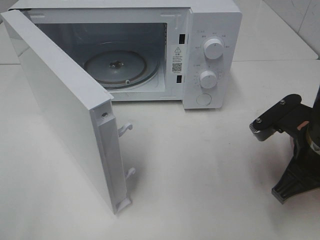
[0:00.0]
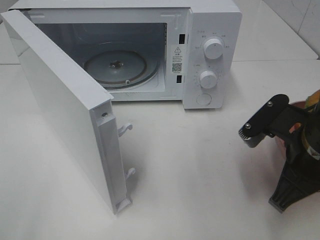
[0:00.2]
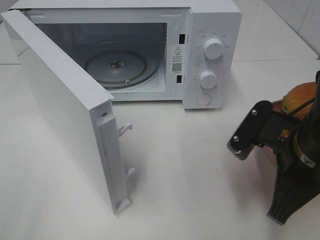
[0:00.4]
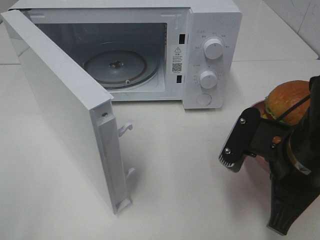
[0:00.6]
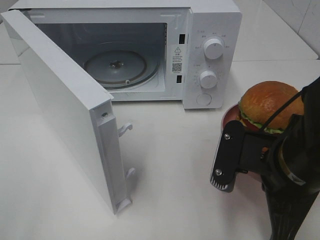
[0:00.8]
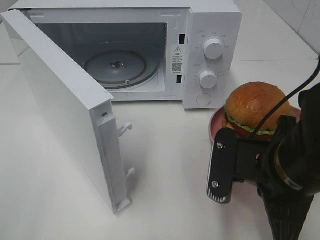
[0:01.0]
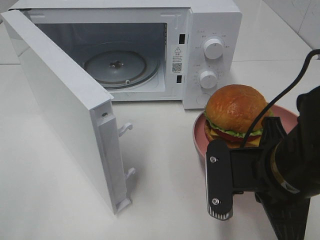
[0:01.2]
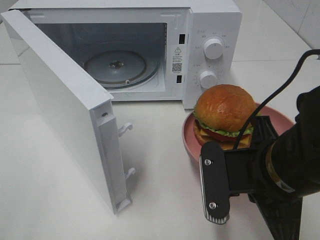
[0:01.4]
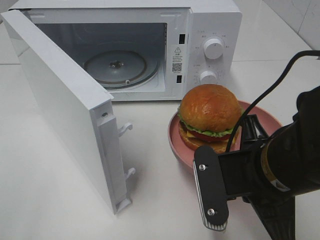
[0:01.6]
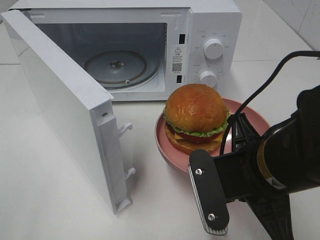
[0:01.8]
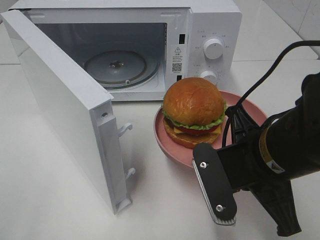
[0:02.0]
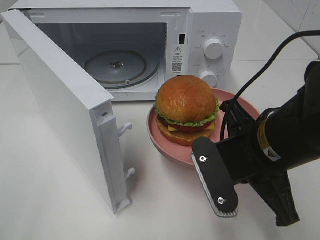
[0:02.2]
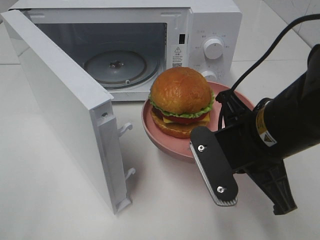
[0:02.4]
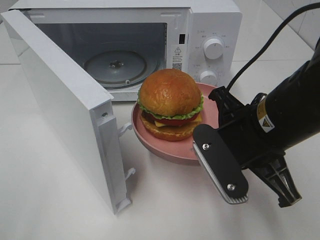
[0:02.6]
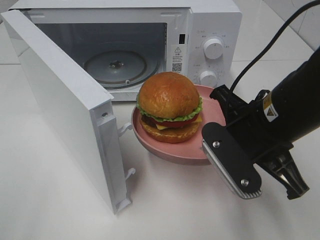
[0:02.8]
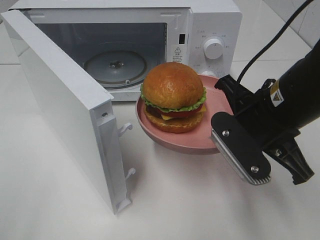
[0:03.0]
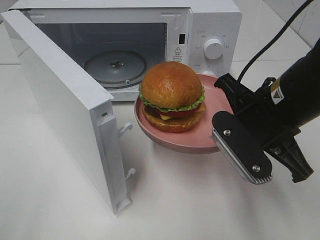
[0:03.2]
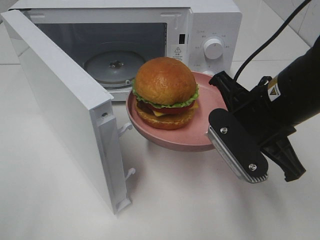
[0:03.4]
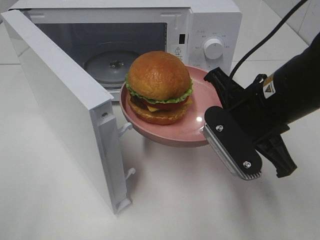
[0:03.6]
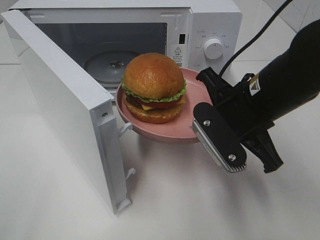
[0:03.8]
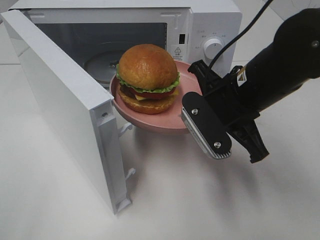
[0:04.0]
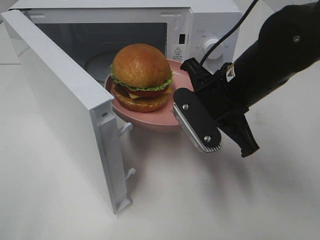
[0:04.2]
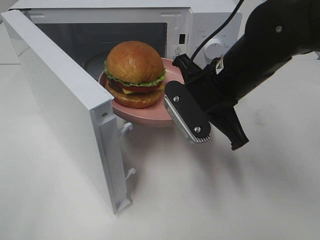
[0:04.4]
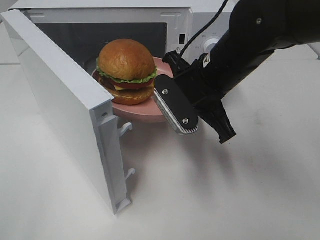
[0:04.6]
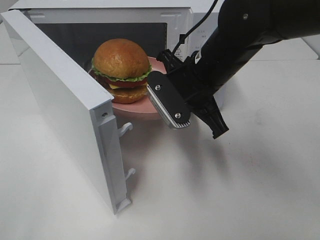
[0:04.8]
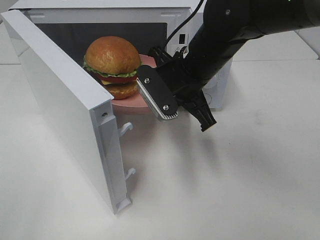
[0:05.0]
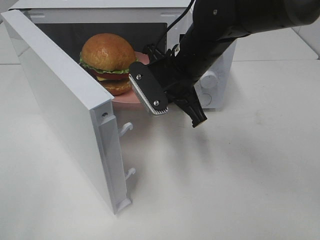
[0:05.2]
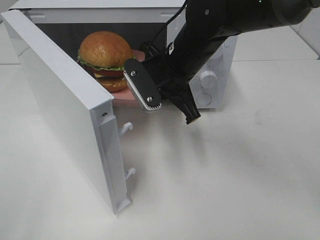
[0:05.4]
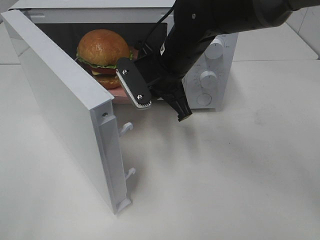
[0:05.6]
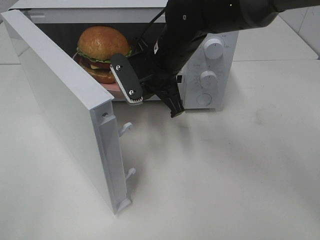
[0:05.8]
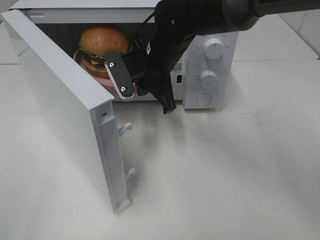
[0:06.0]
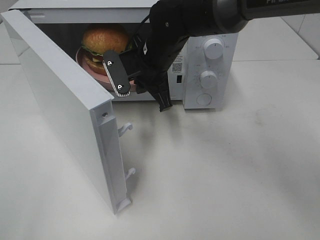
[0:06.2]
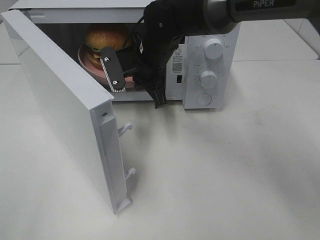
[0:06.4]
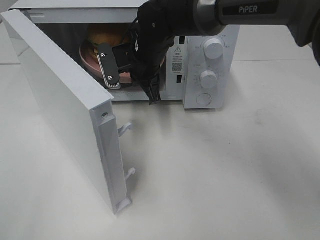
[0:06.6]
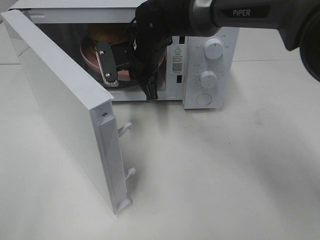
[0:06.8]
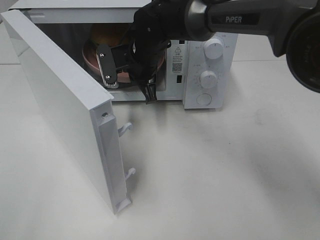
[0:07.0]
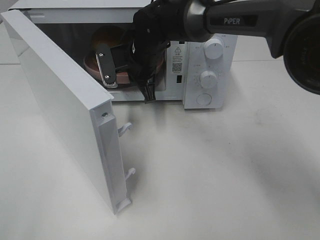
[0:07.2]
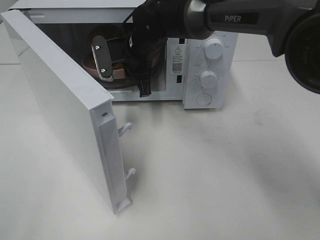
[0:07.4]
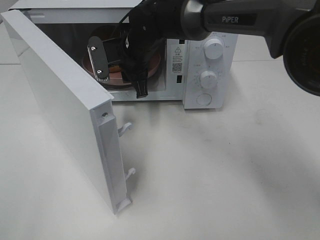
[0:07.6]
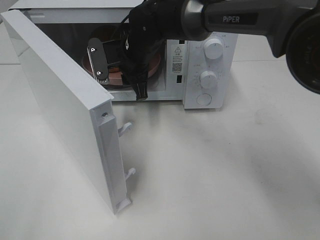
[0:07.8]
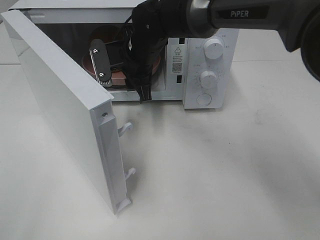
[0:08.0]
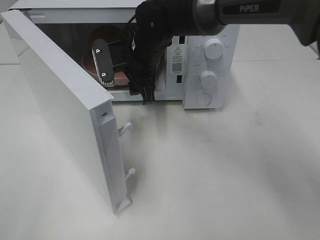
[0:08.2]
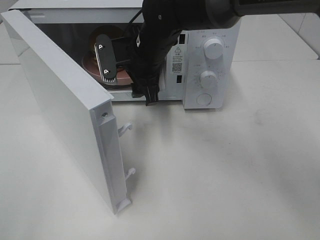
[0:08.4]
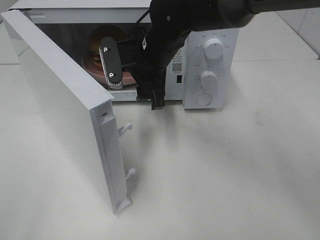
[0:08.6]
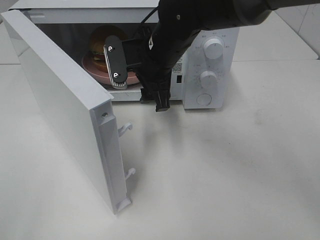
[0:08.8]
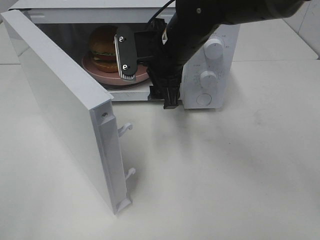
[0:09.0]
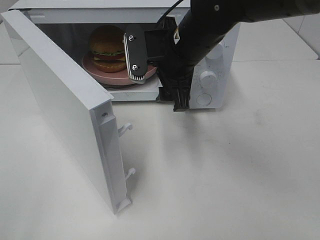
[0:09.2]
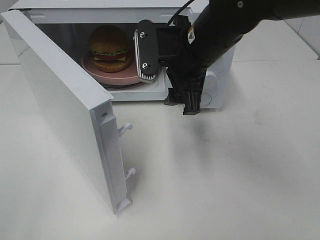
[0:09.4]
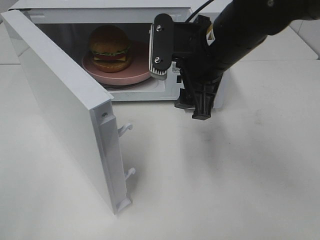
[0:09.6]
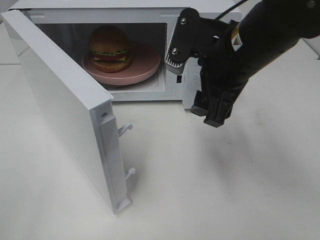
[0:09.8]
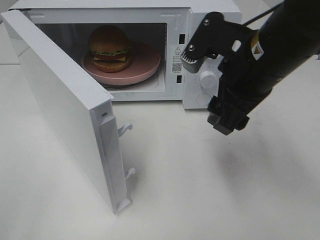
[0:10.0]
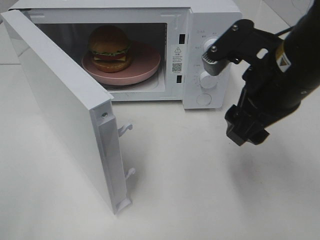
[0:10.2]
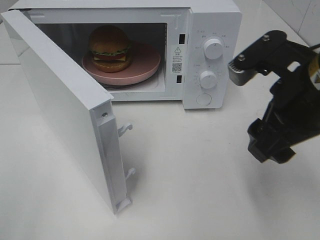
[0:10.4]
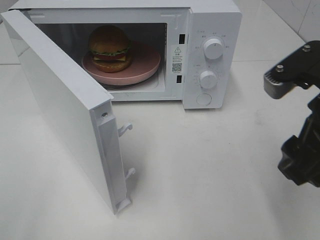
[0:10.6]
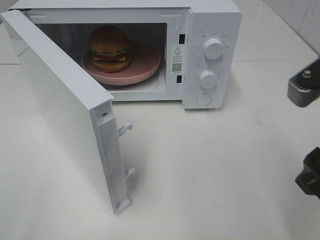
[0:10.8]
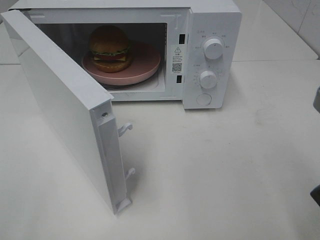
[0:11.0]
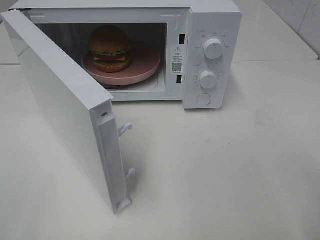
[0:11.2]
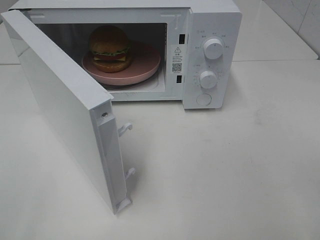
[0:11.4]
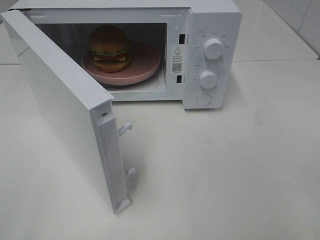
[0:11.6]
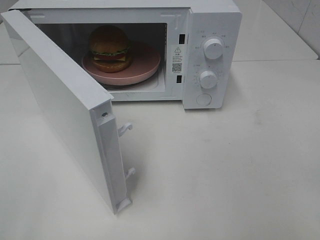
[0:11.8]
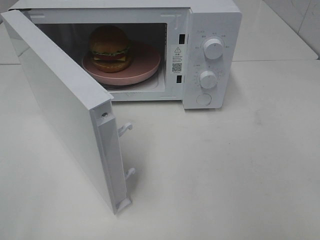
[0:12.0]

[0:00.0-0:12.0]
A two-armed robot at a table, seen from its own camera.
Task of the whole recording: Heat the burger.
Step, 0:00.0 to 0:07.6: Right hand: place the plate in the microwave.
0:00.0 to 0:01.6: The right gripper goes approximately 10 cm to the left.
0:01.6 to 0:03.0: The right gripper goes about 5 cm forward.
0:03.0 to 0:04.4: The right gripper shifts roughly 10 cm forward and to the left.
0:04.4 to 0:06.0: The right gripper goes some 15 cm forward and to the left.
0:06.0 to 0:07.6: The right gripper moves forward, approximately 5 cm, and opens its fingers.
0:07.6 to 0:09.0: The right gripper travels backward and to the right by approximately 10 cm, and opens up.
0:09.0 to 0:10.4: The right gripper heads backward and to the right, covering about 20 cm.
0:10.4 to 0:12.0: The right gripper heads backward and to the right, covering about 20 cm.

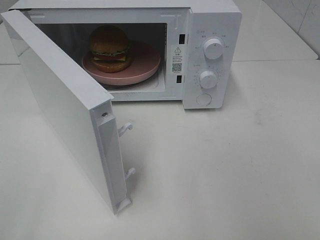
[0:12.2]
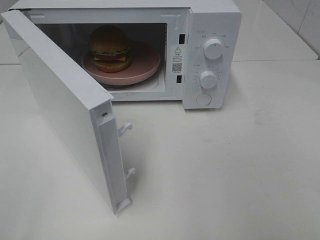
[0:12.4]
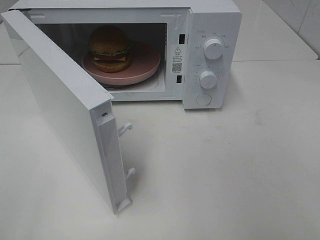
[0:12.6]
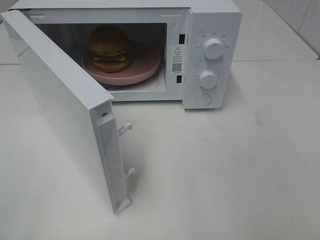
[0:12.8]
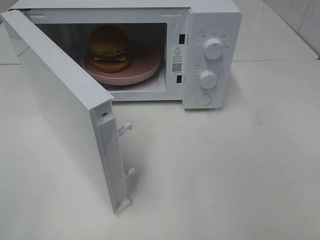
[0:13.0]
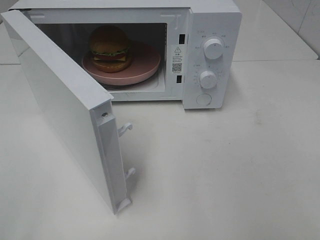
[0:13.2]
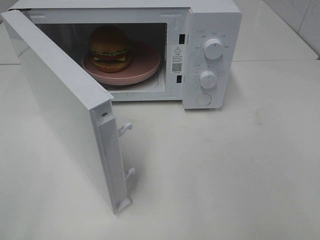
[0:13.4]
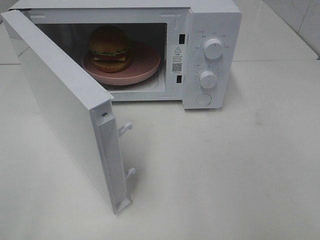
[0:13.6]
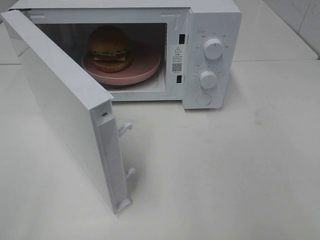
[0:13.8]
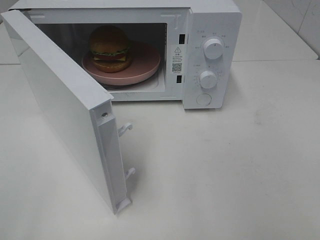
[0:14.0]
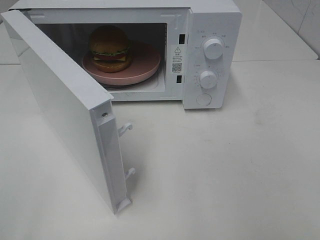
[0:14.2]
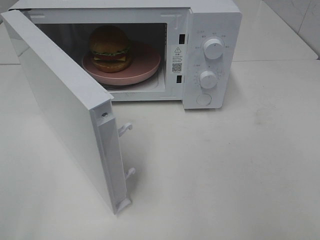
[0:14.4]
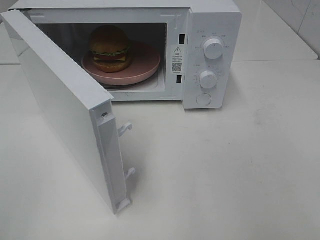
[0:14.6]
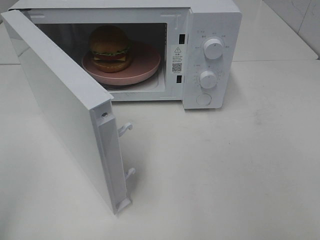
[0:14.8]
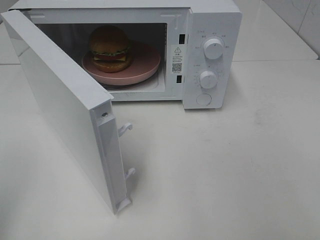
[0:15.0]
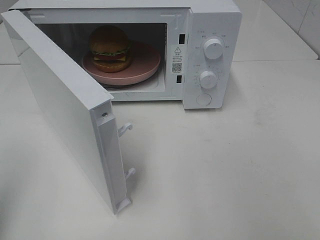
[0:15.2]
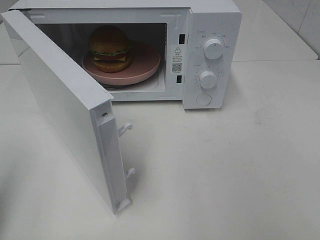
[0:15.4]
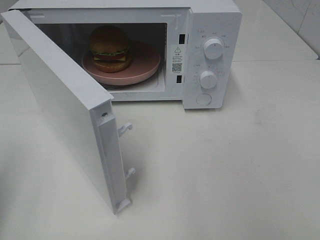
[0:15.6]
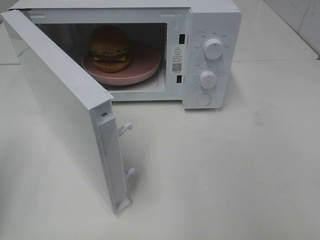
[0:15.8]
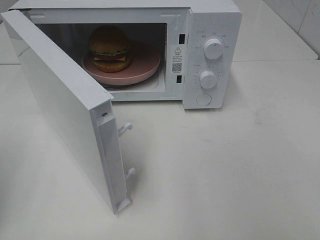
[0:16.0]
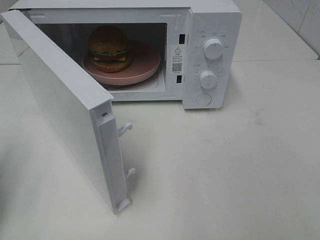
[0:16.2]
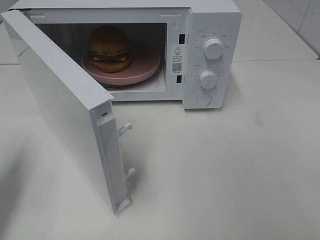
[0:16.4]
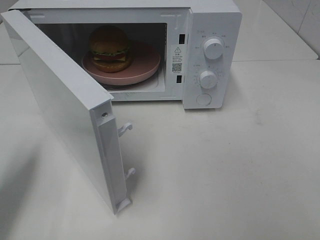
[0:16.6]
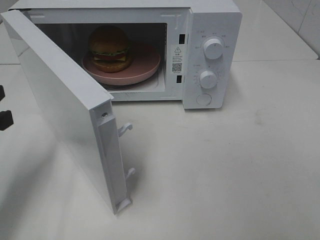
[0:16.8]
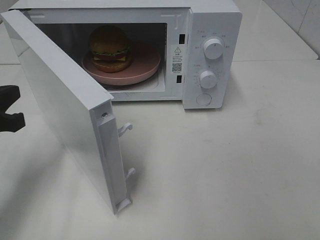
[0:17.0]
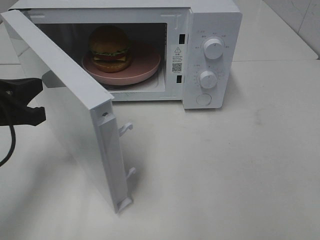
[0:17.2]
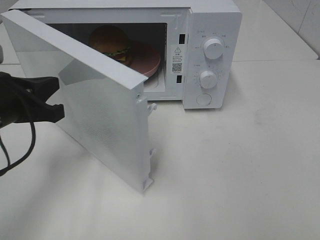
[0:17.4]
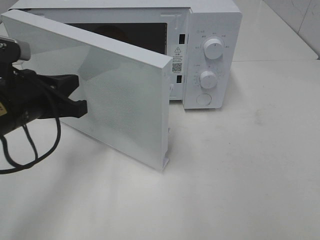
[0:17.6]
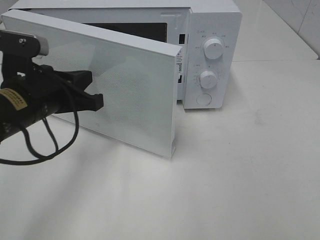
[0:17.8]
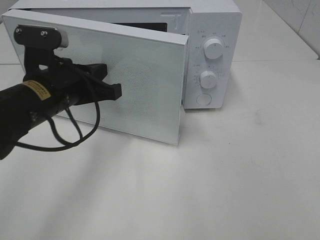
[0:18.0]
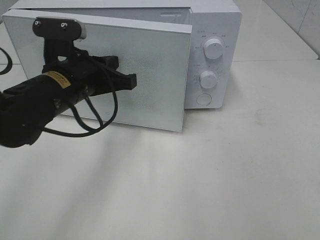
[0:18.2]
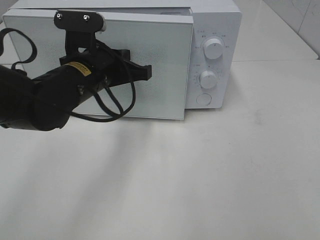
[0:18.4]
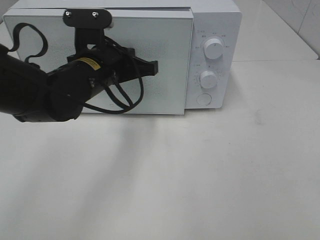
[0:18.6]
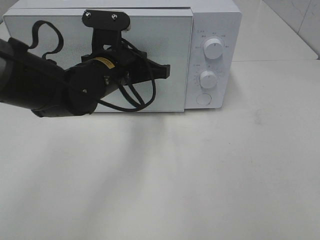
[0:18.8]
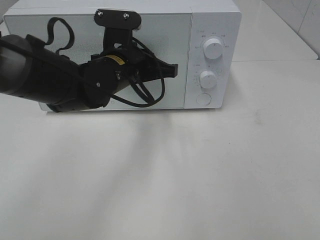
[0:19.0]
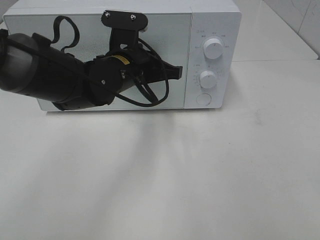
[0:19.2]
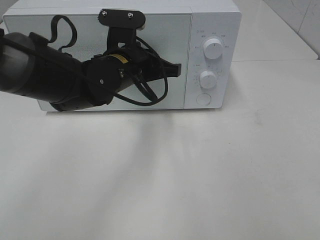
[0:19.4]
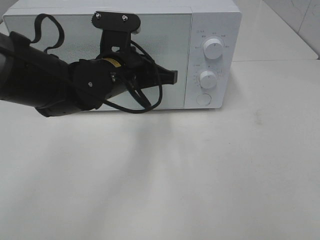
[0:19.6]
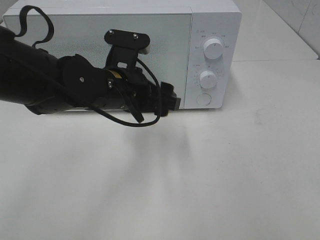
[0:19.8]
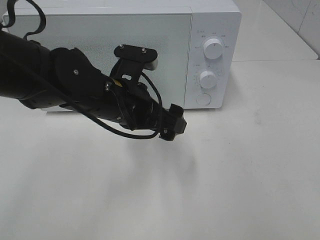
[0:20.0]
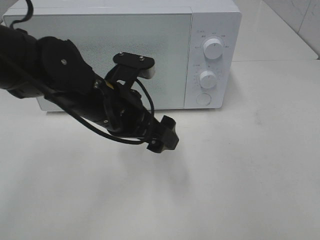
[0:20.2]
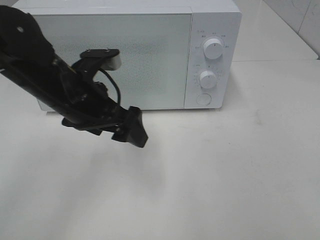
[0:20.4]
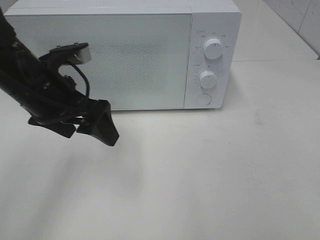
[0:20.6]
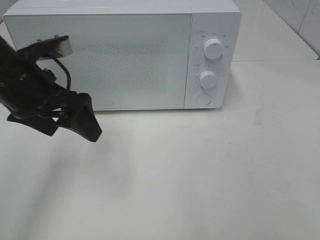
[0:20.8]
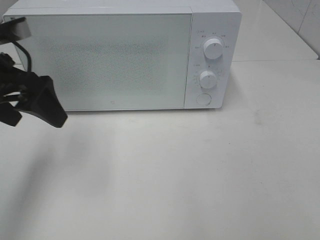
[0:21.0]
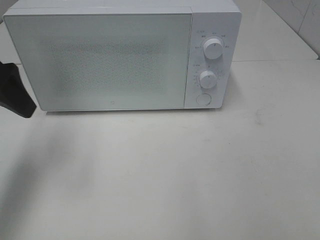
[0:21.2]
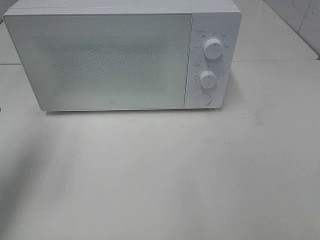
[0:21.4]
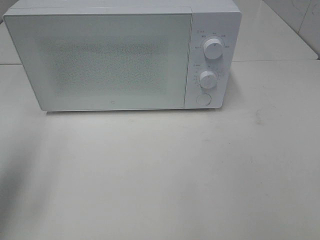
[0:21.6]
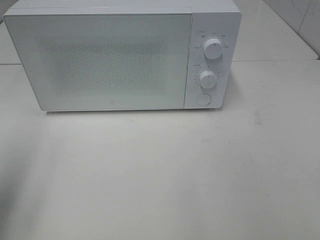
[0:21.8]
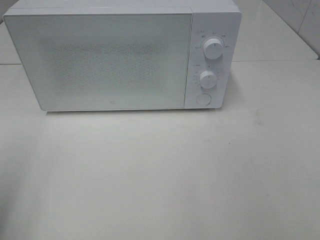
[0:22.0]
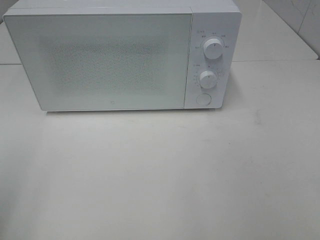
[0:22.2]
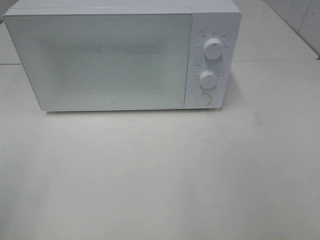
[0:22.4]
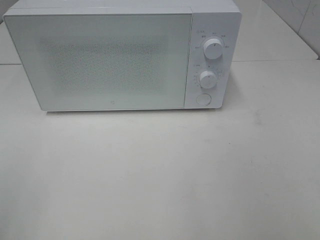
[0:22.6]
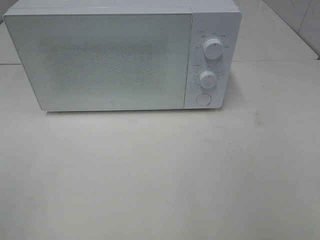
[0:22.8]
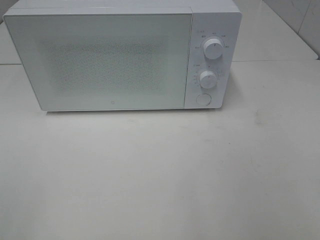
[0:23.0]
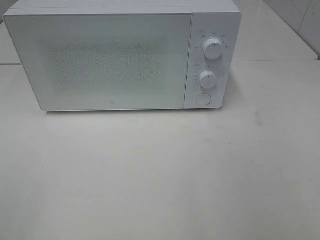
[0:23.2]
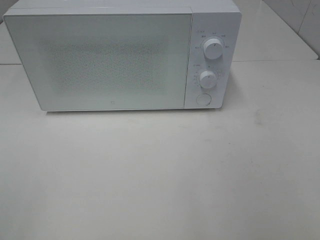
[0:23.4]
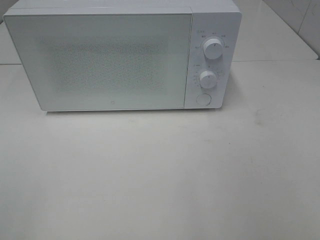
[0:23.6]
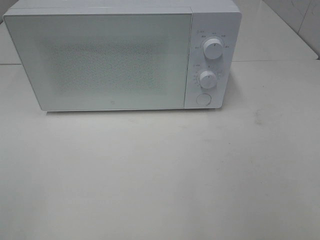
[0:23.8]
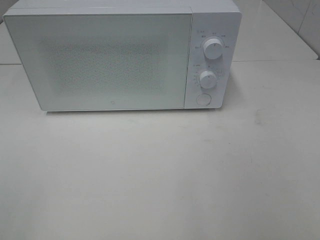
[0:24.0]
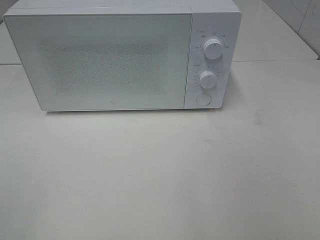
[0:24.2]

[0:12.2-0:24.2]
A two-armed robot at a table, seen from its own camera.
Task of the whole recording: Heat the burger.
Step, 0:12.2 to 0:19.6: Left hand: close the microwave door.
0:15.2 to 0:16.6: The left gripper heads forward and downward, covering about 15 cm.
0:16.6 to 0:18.2: The left gripper is displaced to the right and forward by approximately 20 cm.
0:18.2 to 0:19.8: The left gripper is displaced to the right by roughly 5 cm, and opens its fingers.
0:19.8 to 0:21.2: The left gripper travels to the left and upward by roughly 25 cm.
0:21.2 to 0:22.6: The left gripper shifts about 25 cm backward.
